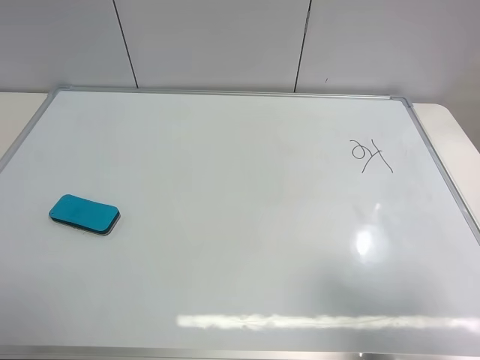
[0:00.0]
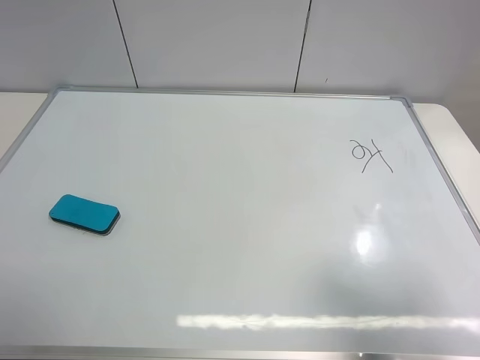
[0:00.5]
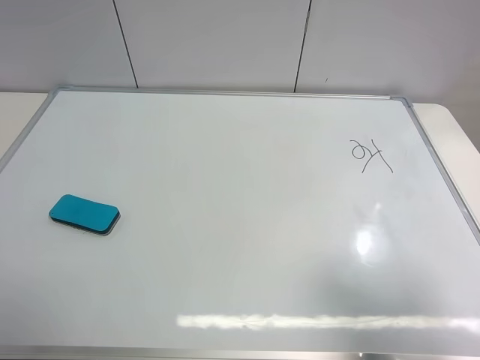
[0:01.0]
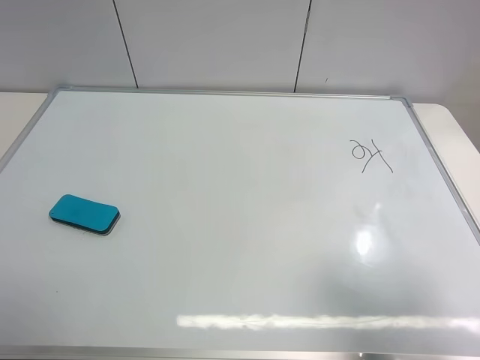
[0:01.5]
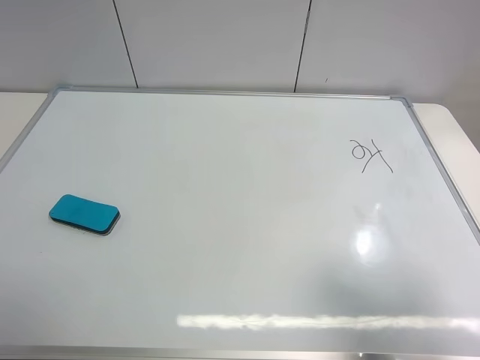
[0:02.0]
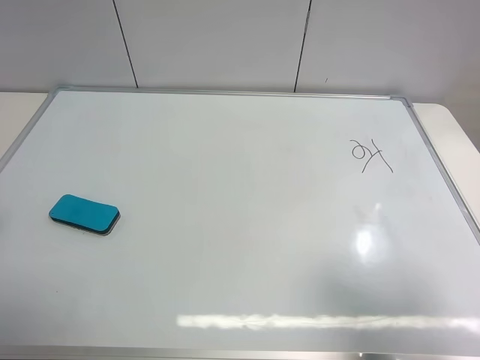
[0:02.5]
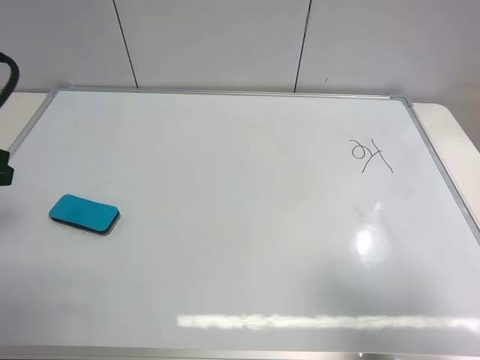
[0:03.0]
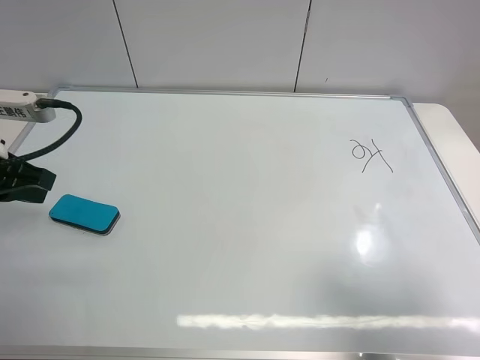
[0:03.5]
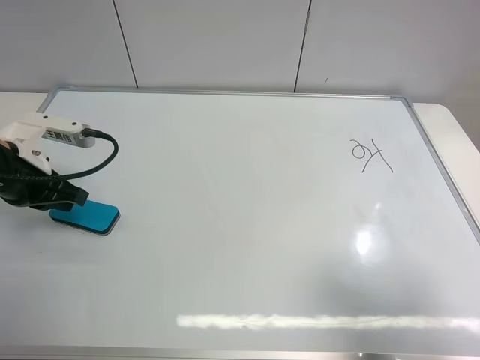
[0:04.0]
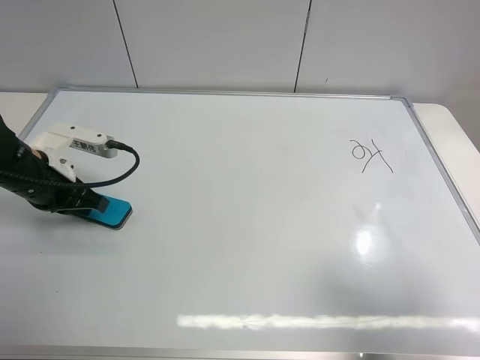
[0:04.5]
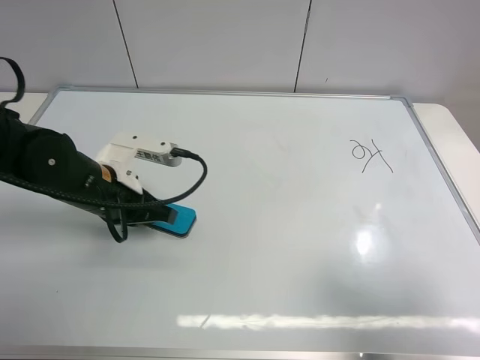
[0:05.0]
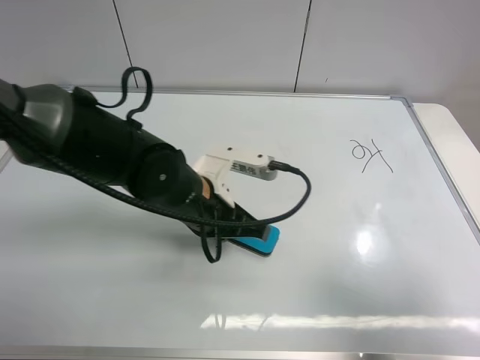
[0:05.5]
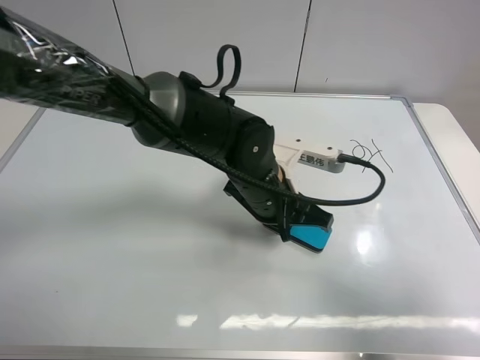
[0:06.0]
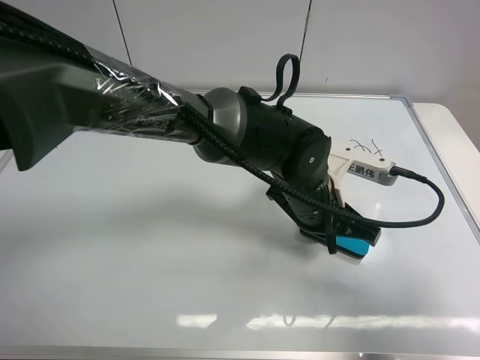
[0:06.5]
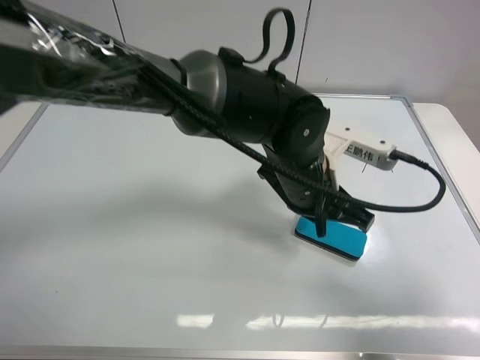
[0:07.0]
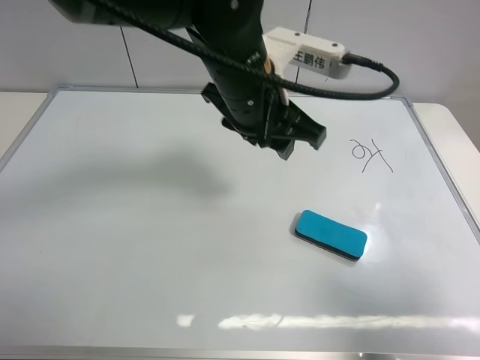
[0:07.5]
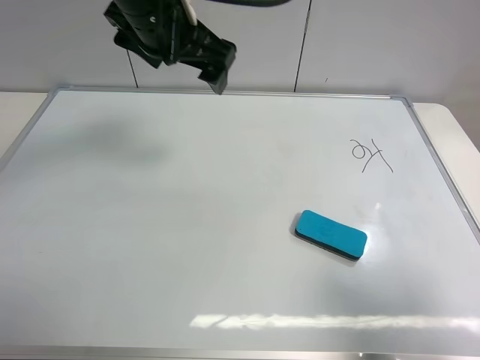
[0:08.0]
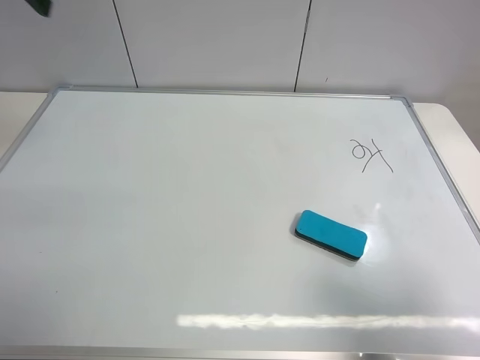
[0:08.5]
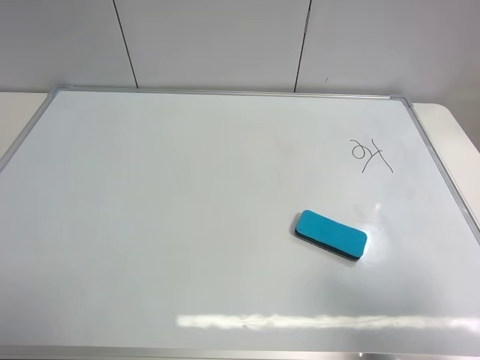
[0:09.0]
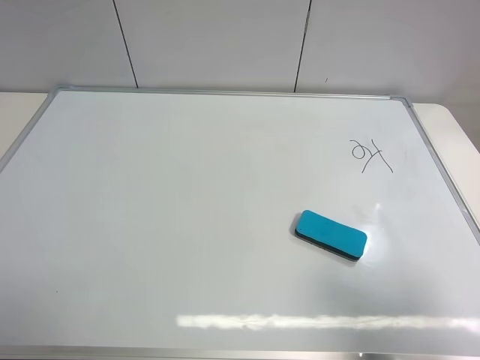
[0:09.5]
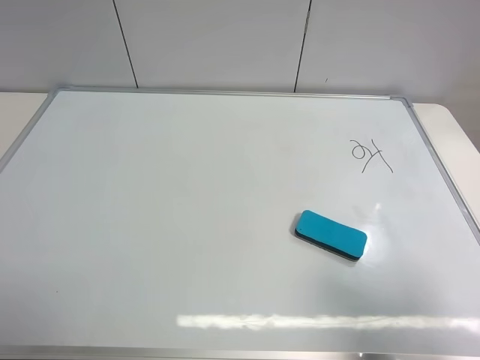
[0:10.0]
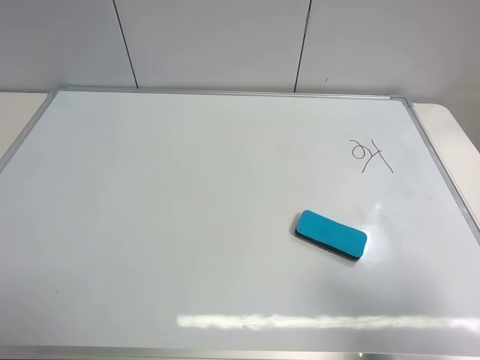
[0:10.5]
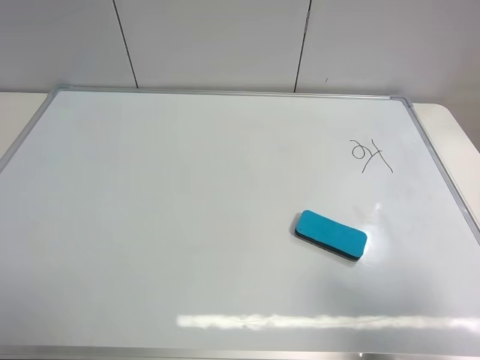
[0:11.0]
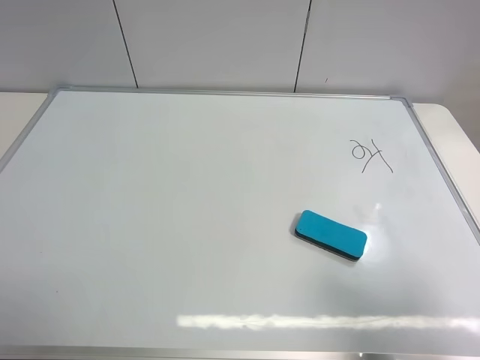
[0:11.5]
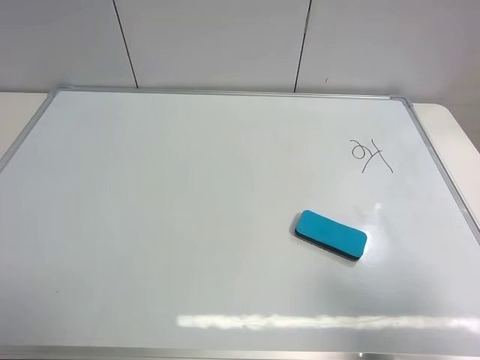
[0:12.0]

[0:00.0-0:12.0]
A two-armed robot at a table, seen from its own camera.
Task of the whole recording: use the left gripper to place the eraser in the right, use the right gripper to pick up the eraser, wipe the notes on the whiteboard clean, and then put it down.
Step, 0:00.0 to 0:06.5: Move the board eraser to the right of the whiteboard with left gripper.
0:02.0 to 0:04.0: The left gripper travels forward and downward by roughly 25 cm, and closes up.
0:04.0 to 0:06.0: The left gripper moves to the right, about 35 cm.
0:06.0 to 0:08.0: The left gripper is displaced upward and to the left by approximately 25 cm, and opens.
0:08.0 to 0:10.0: The left gripper travels backward and to the left by about 40 cm.
0:10.0 to 0:12.0: The two grippers keep their place.

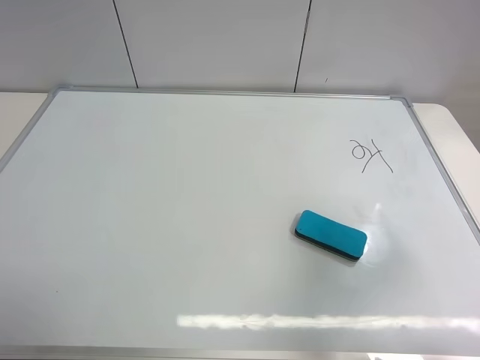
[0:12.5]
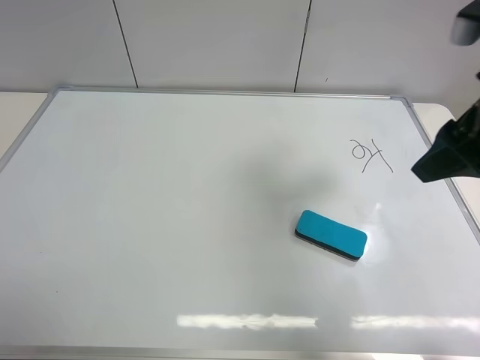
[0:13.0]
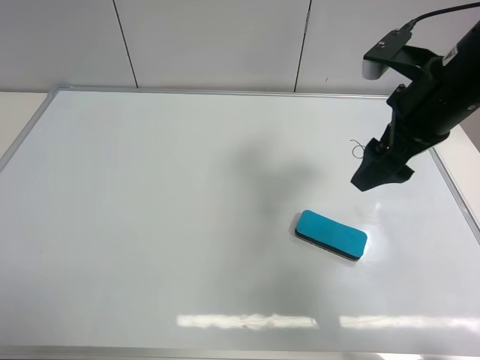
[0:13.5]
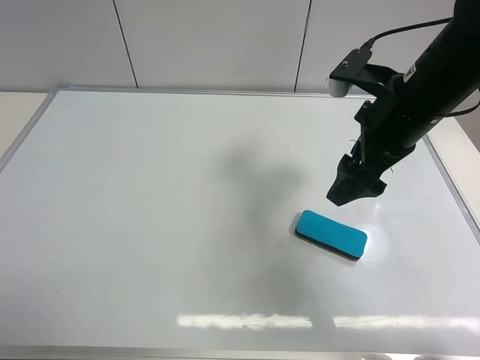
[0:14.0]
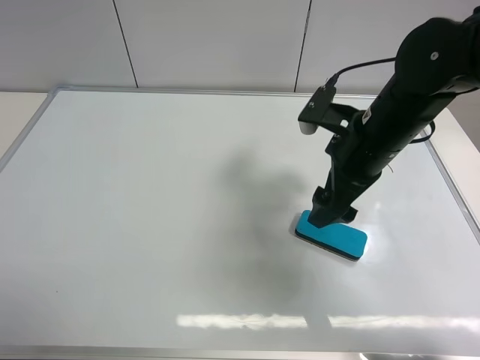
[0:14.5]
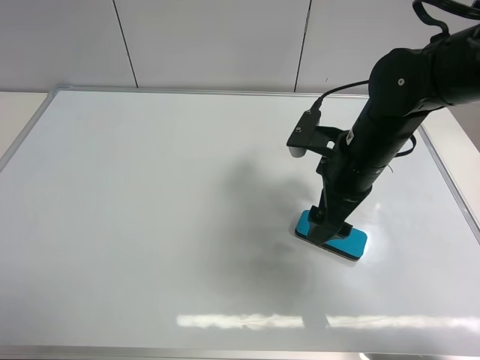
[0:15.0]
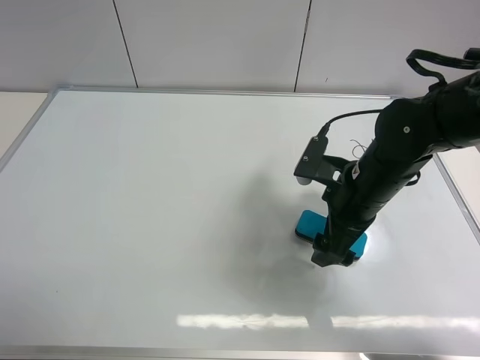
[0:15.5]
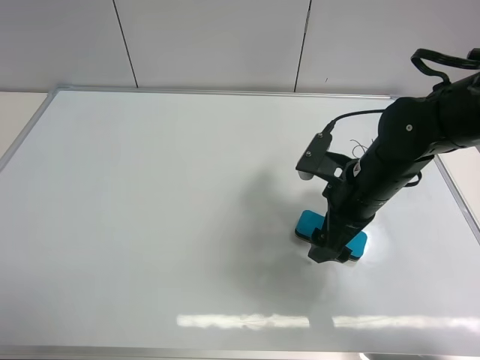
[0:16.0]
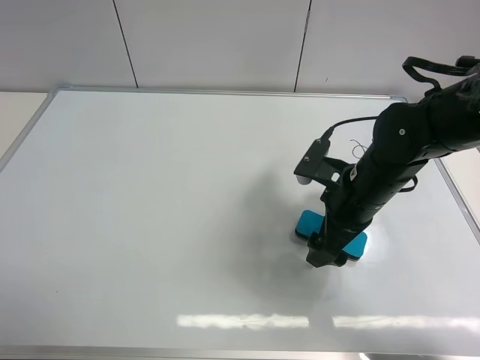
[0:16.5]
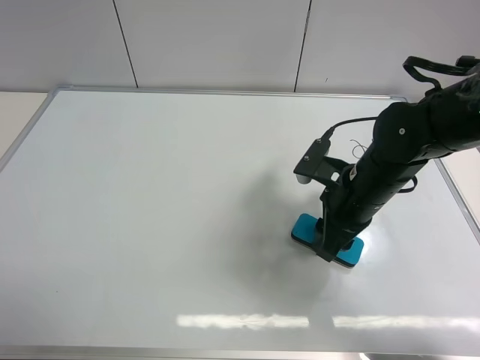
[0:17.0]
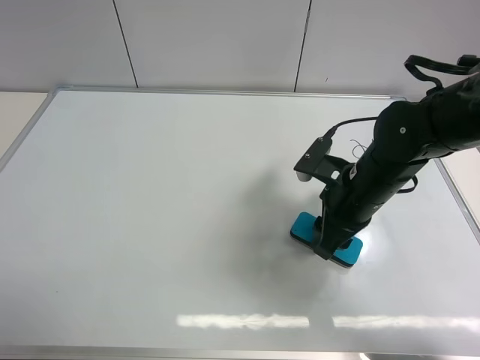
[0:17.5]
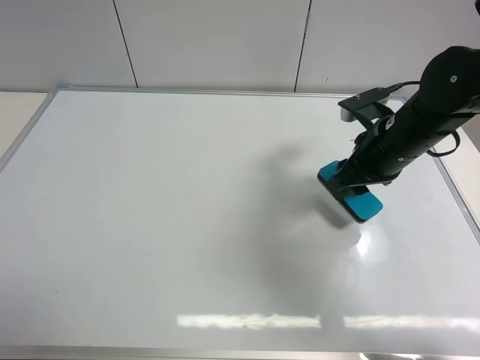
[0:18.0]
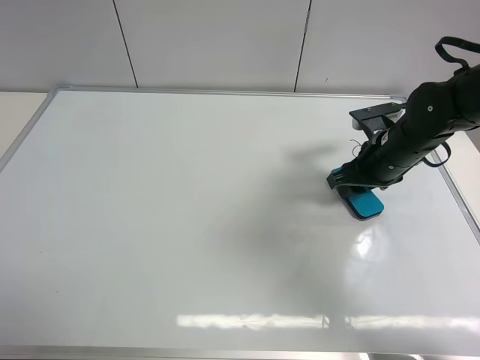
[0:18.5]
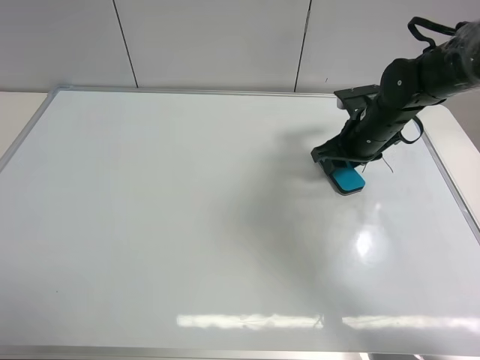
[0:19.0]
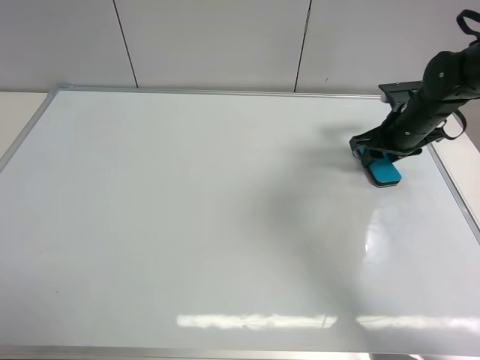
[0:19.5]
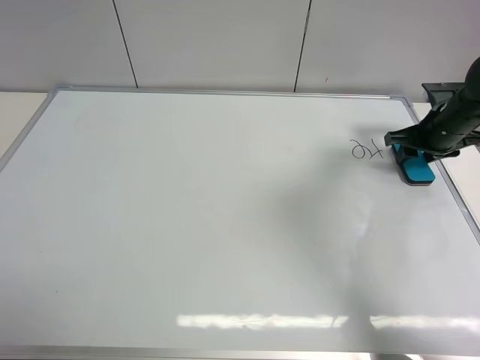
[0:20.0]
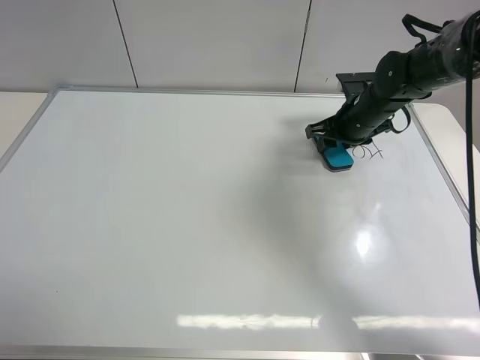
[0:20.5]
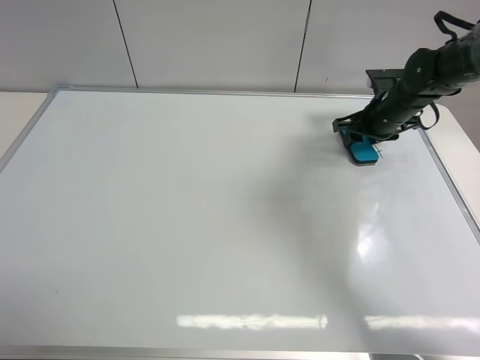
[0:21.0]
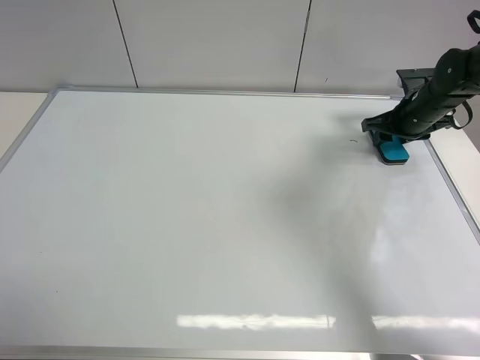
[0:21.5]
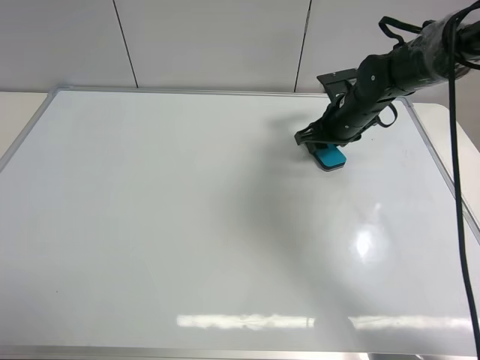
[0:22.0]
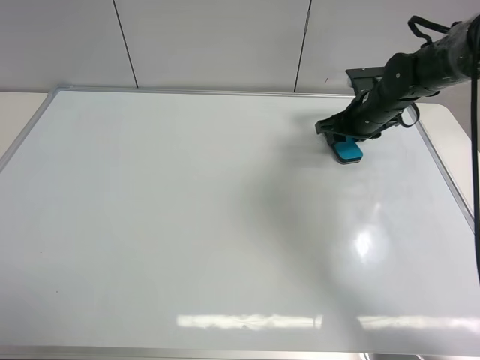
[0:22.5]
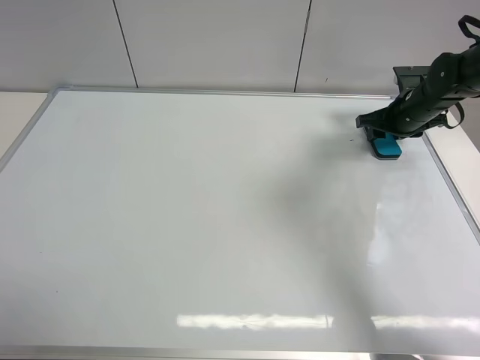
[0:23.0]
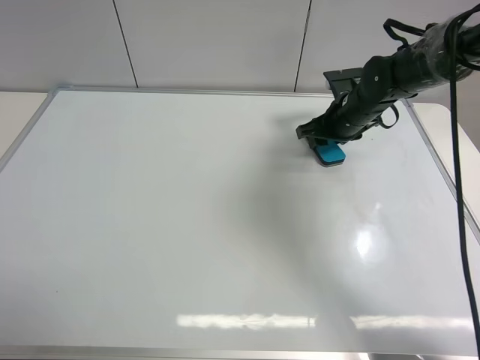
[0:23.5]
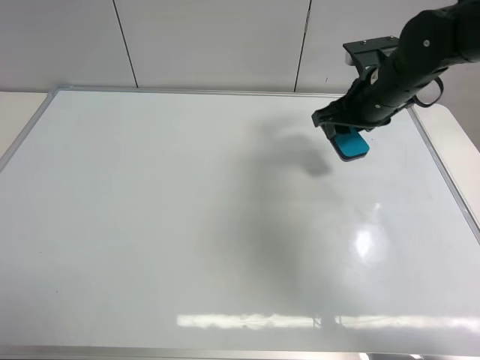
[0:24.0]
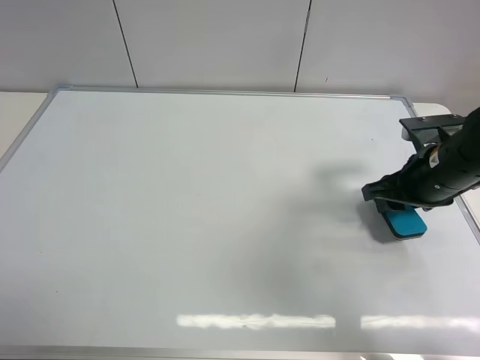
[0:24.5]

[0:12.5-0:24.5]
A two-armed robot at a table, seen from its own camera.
Task of the whole recording: use the left gripper to place the eraser in the right, use the right gripper to pick up the eraser, wipe the notes on the whiteboard clean, and then put it down.
Step, 0:12.5 to 0:17.5: Pick up the board eraser with right gripper.
Step, 0:18.0 to 0:23.5: Wipe off the writing on the board with right gripper.
0:12.5 to 0:14.5: The right gripper heads forward, to the left and downward, covering roughly 25 cm.
0:14.5 to 0:16.5: The right gripper shifts about 5 cm downward.
0:16.5 to 0:18.5: The right gripper travels forward and to the right by about 10 cm, and closes up.
0:18.5 to 0:20.5: The right gripper moves forward, about 10 cm, and goes to the right and returns, approximately 10 cm each way.
0:20.5 to 0:22.5: The right gripper swings left and right, some 15 cm each way, with 2 reversals.
0:22.5 to 0:24.5: The right gripper heads backward, covering about 15 cm.

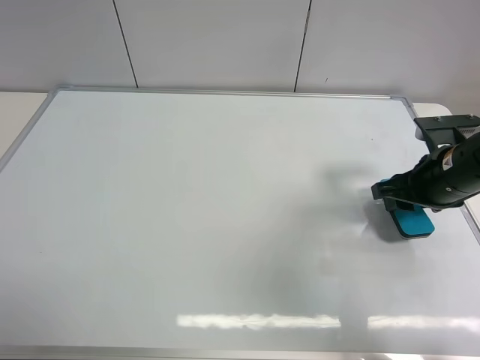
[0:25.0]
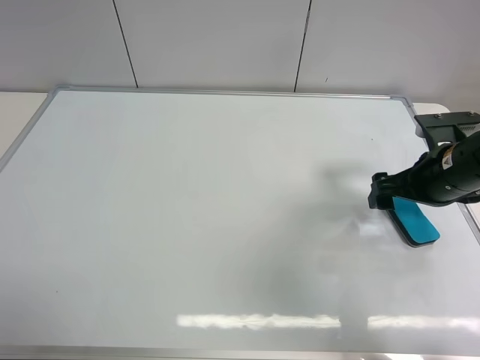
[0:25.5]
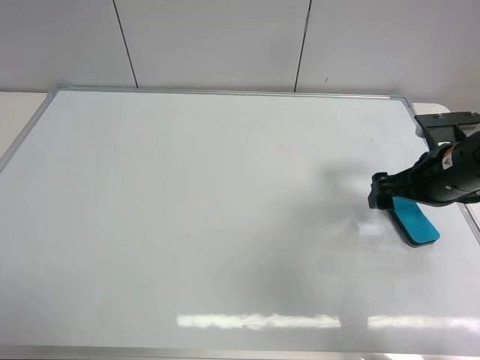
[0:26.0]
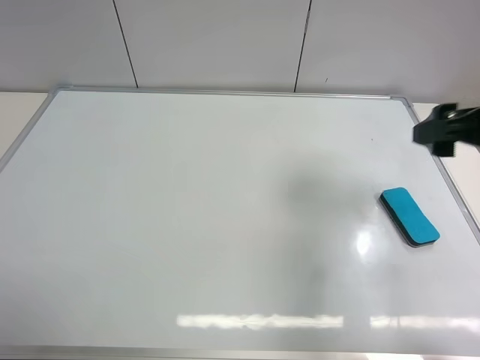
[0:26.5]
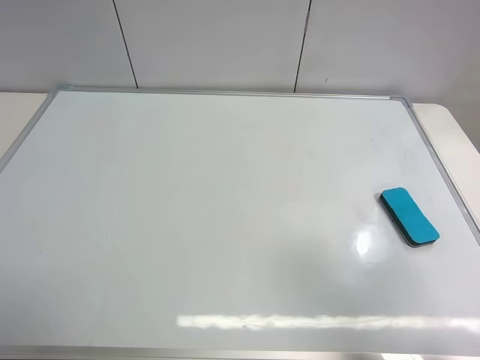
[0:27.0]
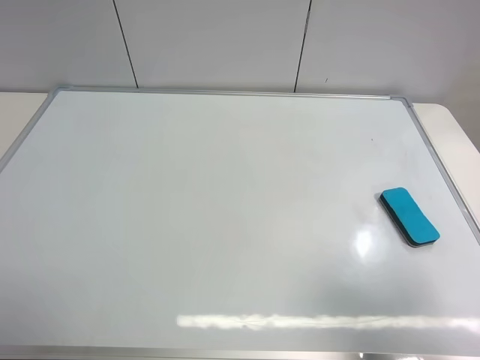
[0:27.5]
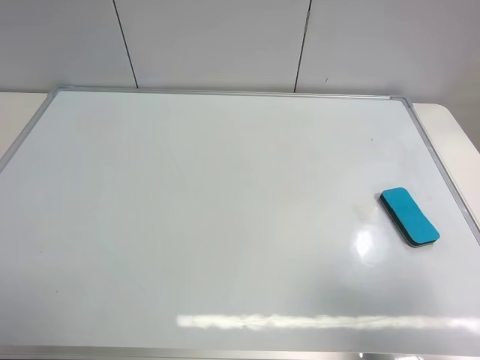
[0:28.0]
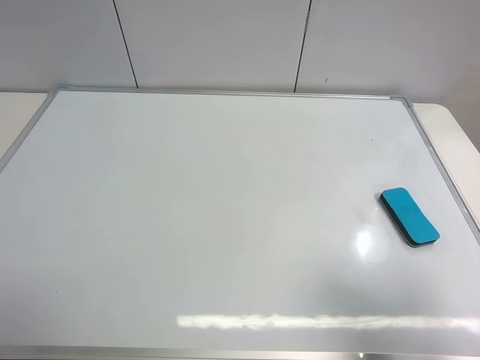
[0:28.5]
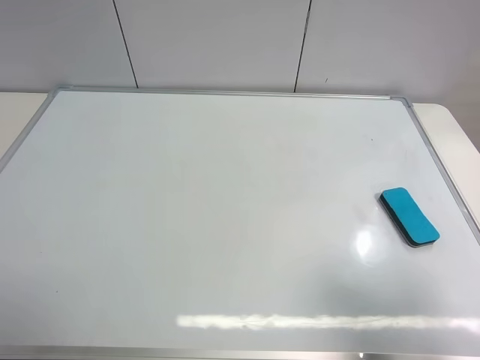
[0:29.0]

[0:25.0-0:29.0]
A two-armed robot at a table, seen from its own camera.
Task of the whole recording: use the left gripper to place the eraser in the right, use the right gripper to pick up the eraser, wipe the notes on the whiteboard clean, and then put it down.
0:25.0 to 0:27.0: The right gripper heads backward and upward, covering about 30 cm, and opens its fingers.
